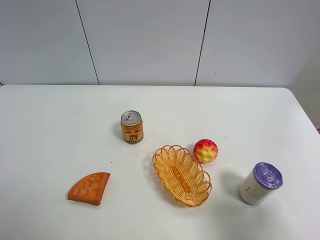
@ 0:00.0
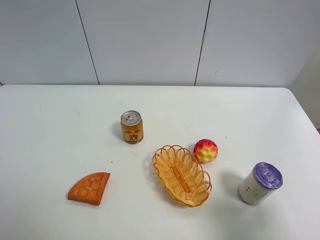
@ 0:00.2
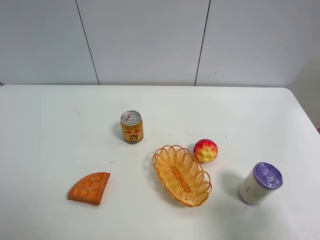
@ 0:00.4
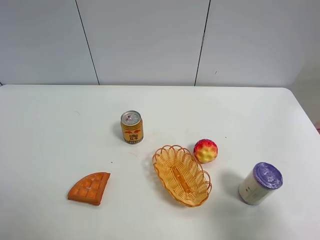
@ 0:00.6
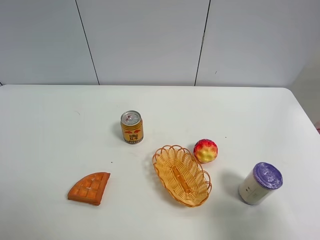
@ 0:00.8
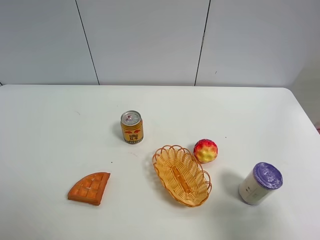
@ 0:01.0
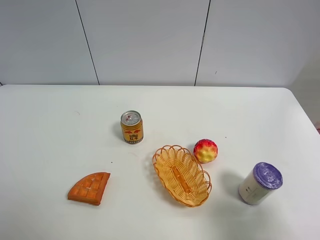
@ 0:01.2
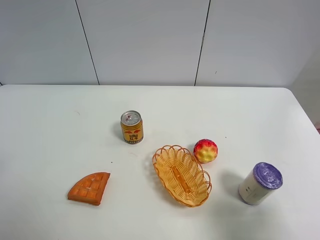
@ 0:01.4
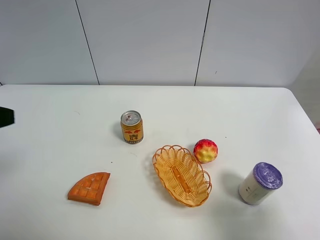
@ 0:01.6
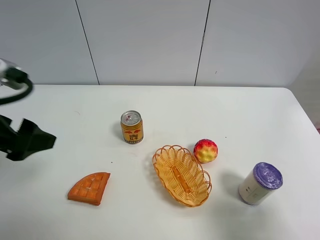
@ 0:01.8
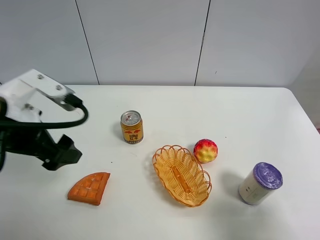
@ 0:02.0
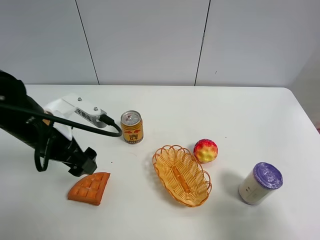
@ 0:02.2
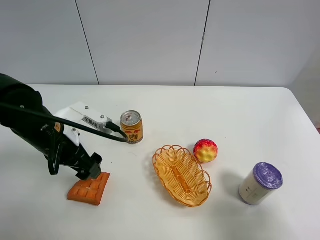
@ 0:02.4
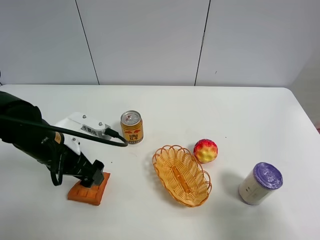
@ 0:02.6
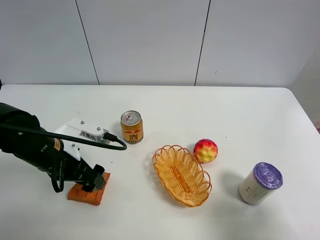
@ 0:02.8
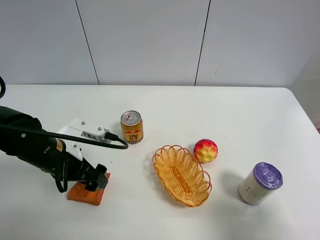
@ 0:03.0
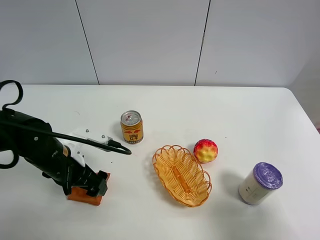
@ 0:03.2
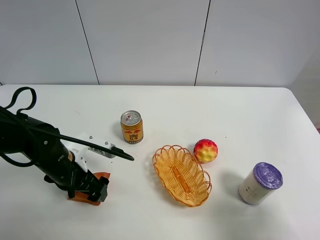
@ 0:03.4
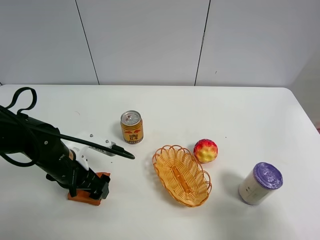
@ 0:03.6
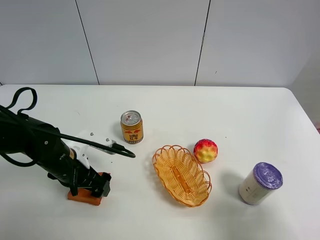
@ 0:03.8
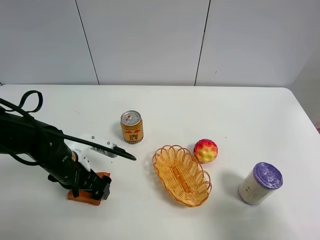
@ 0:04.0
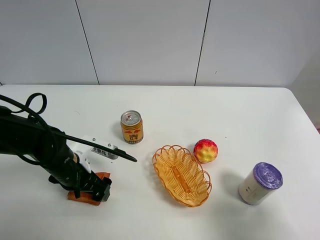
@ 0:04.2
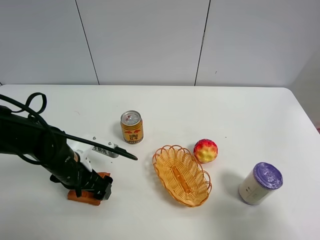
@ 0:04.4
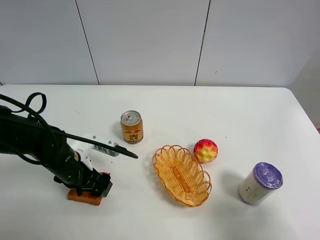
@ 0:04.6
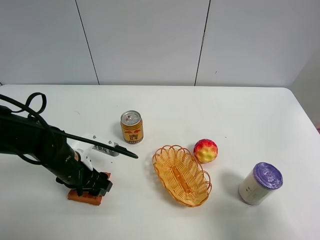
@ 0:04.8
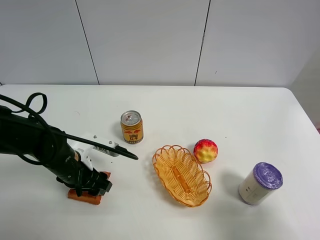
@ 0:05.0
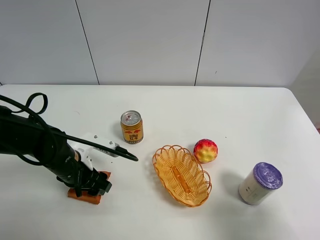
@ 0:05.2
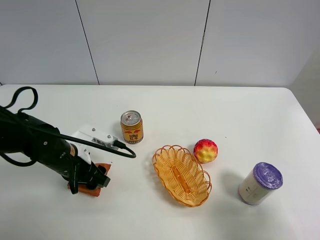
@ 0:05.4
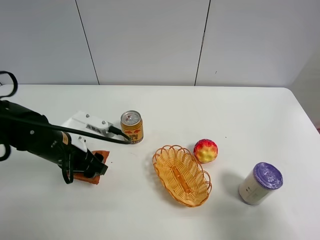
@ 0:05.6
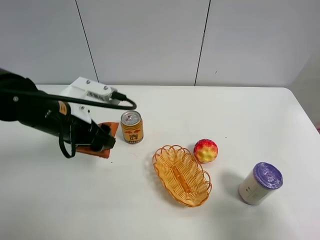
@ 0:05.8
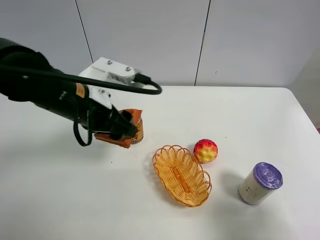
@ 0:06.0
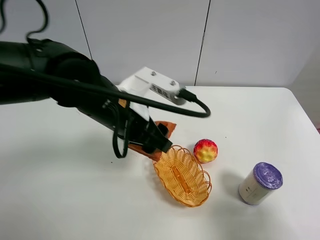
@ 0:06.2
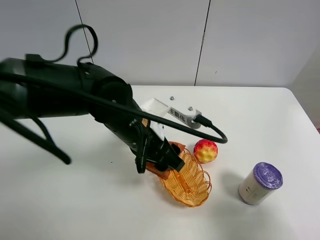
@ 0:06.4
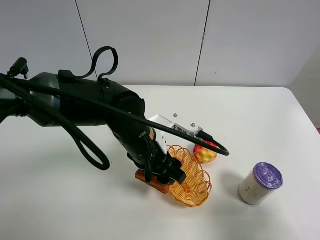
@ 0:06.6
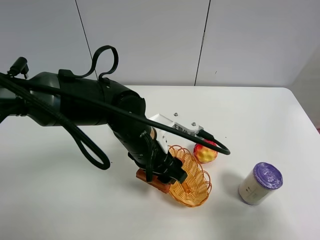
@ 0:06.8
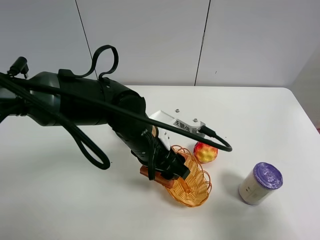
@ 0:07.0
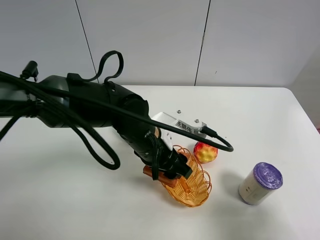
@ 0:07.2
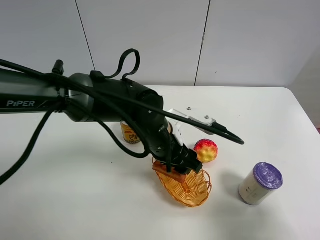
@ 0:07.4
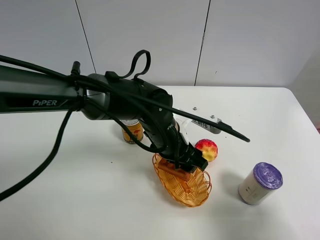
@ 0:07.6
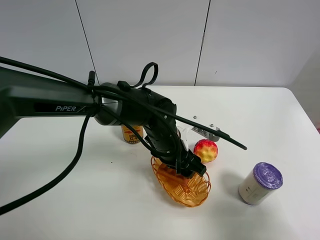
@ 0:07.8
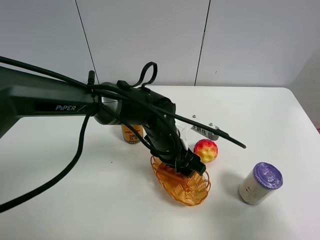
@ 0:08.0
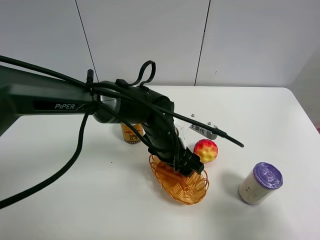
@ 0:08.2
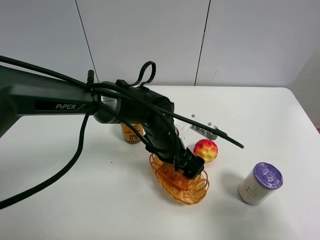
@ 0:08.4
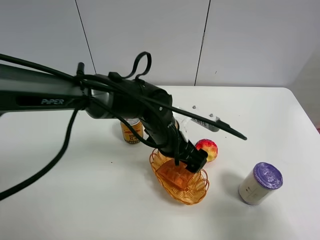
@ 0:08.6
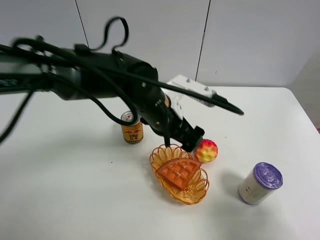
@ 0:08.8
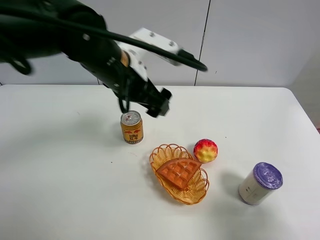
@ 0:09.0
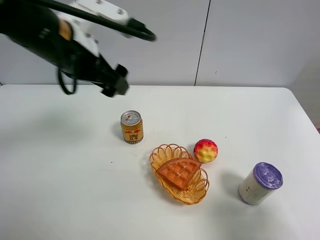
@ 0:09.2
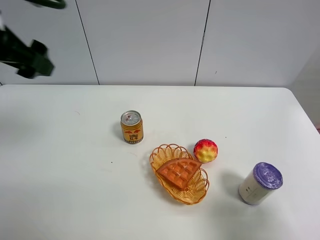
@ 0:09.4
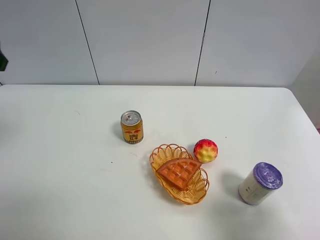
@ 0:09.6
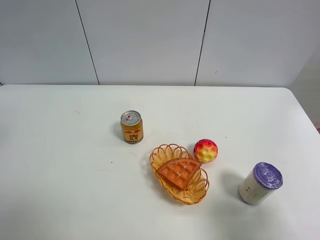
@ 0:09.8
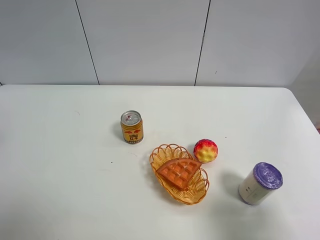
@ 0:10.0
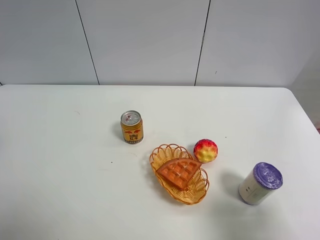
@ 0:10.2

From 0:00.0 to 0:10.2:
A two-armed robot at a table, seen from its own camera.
Task of the whole recording: Put the bakery in the basket.
From 0:01.4 to 0:03.0: The left gripper heads downward, forward and to the right, covering some 25 cm.
From 0:03.0 to 0:04.4: The left gripper moves downward, roughly 5 cm.
From 0:04.4 to 0:05.8: The left gripper is displaced upward by about 15 cm, and closes up.
From 0:05.8 to 0:07.2: The left gripper heads to the right and downward, covering about 15 cm.
From 0:07.2 to 0:08.8: The left gripper shifts by some 5 cm, and opens up.
From 0:08.8 to 0:10.2: The left gripper moves to the left and upward, approximately 35 cm.
